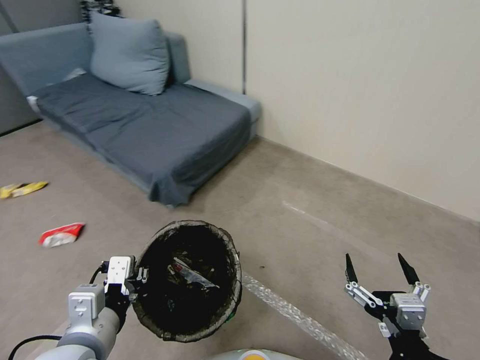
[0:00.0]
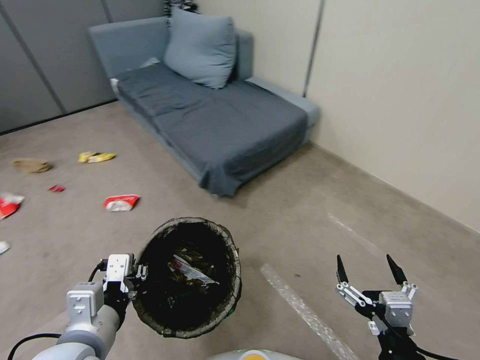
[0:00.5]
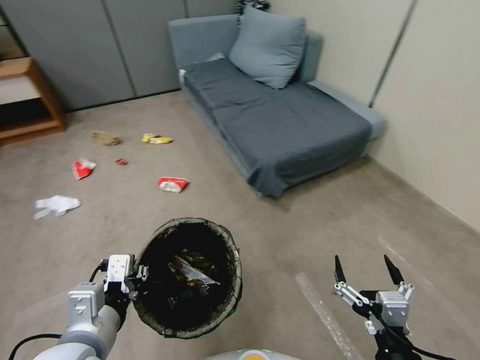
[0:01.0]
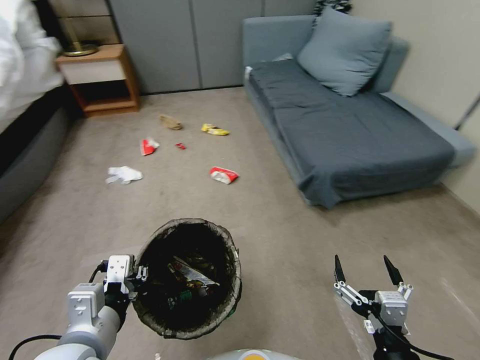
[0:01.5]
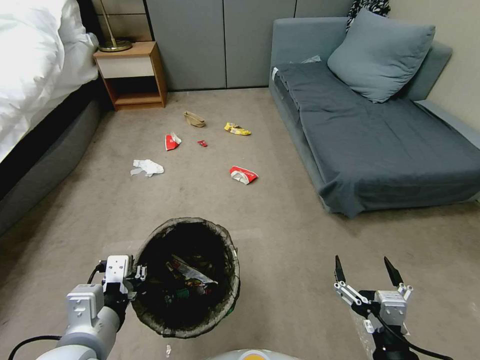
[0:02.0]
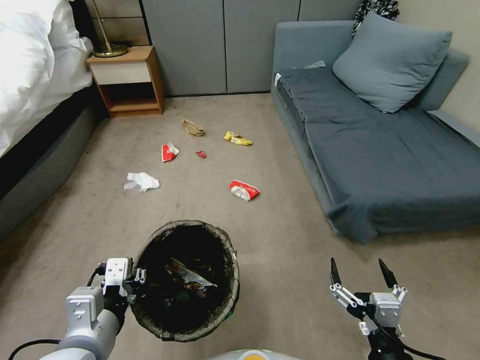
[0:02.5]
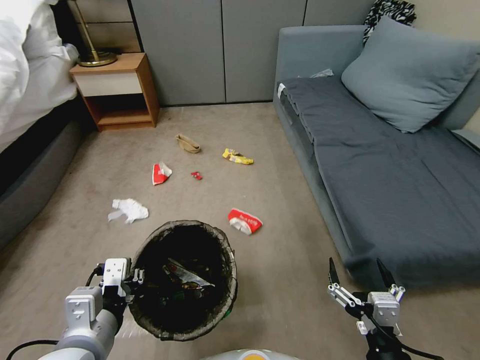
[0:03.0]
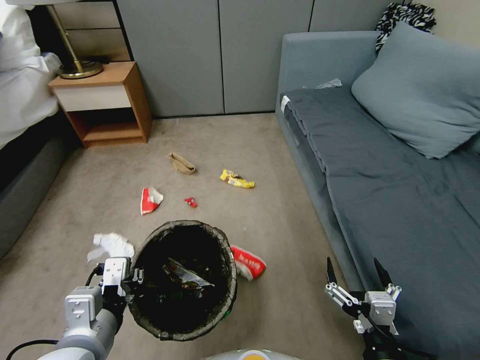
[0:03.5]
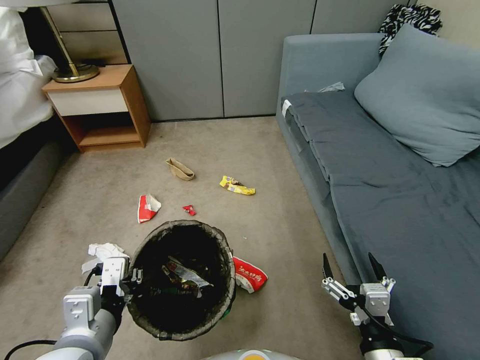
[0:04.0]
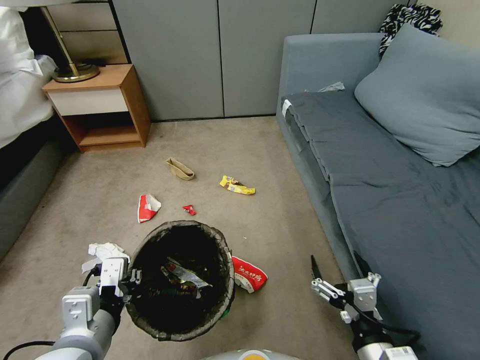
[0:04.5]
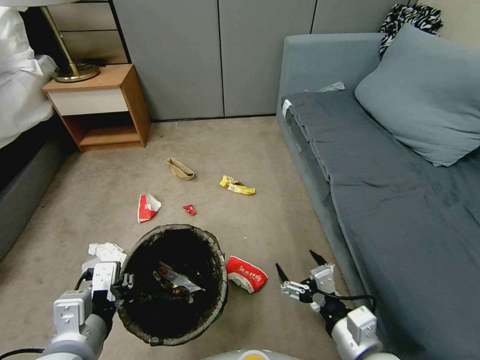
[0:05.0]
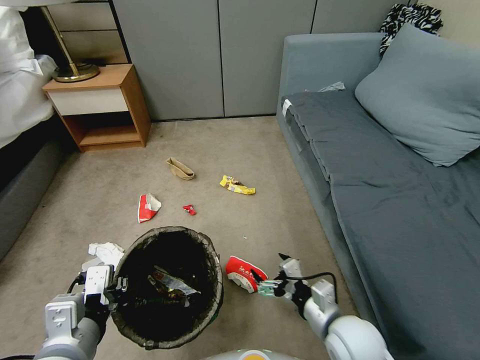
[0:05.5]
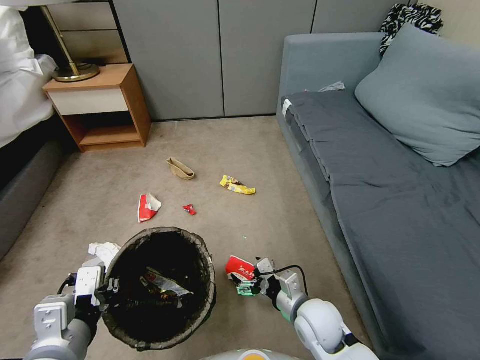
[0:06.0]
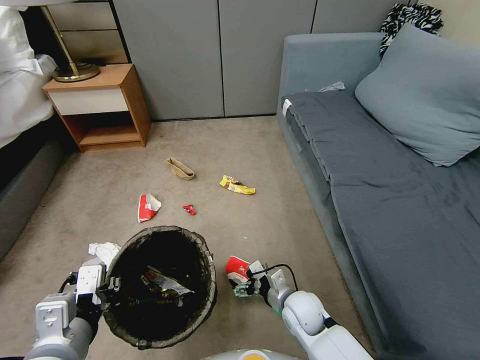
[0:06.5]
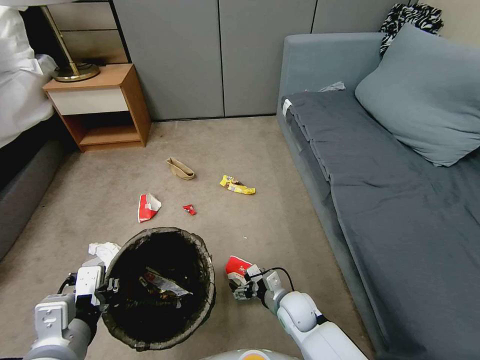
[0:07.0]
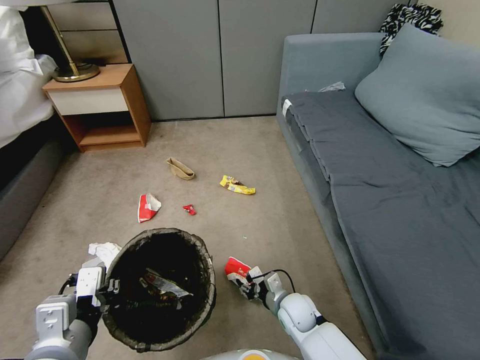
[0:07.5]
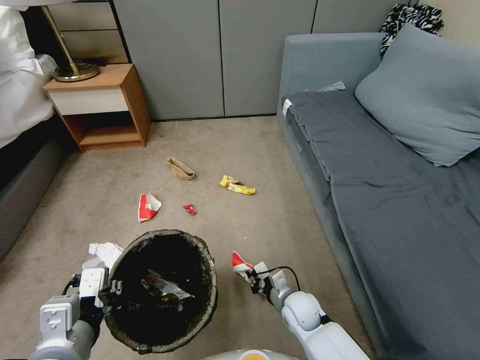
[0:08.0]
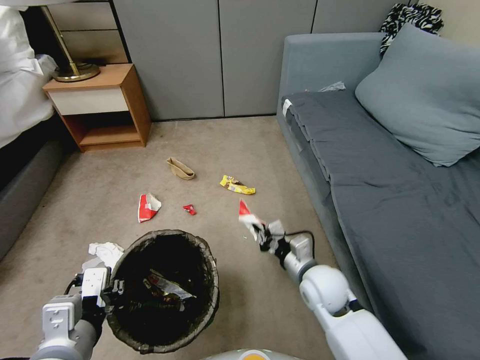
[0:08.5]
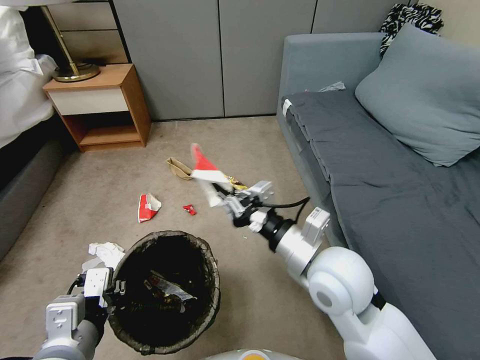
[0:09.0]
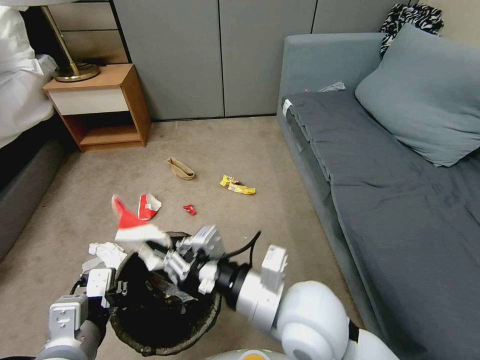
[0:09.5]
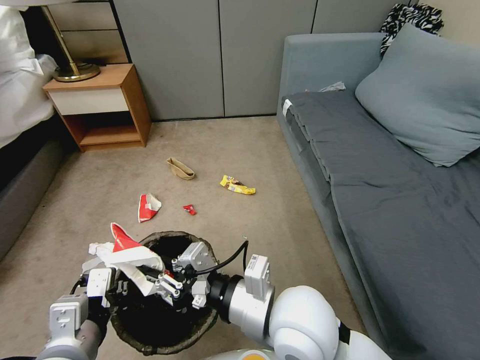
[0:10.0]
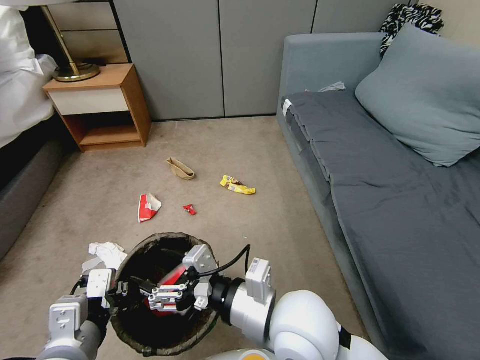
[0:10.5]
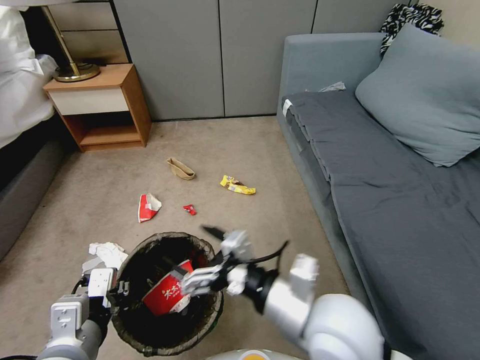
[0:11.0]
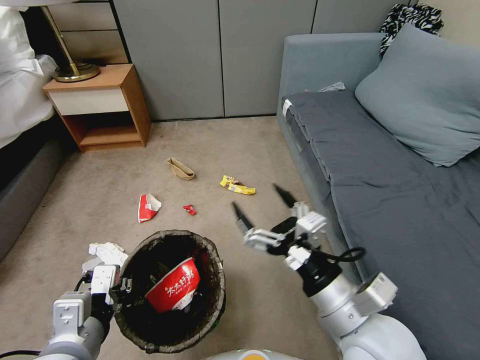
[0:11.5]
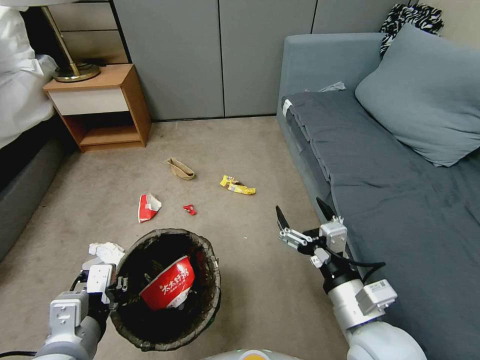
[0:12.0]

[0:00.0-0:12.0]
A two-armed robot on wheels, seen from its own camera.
Task of the whole recording: Pick up the trash bin, then pick up the garbage from the floor and place it into the trash bin.
4.0 to 6.0 s: The right gripper goes approximately 20 cm forward, downward and to the left.
6.0 to 8.0 s: The right gripper is displaced downward by about 10 cm, and closes its fingers.
8.0 to 10.0 s: The right gripper is displaced upward by about 30 cm.
10.0 to 12.0 s: The right gripper heads to the right, covering about 10 cm, and opens its fingers.

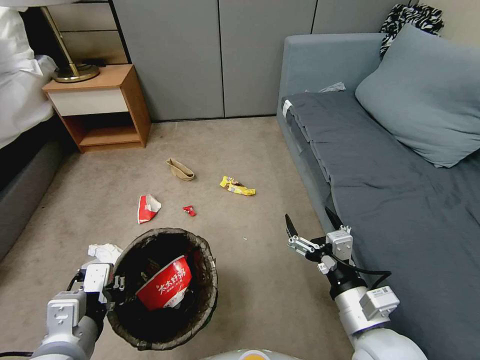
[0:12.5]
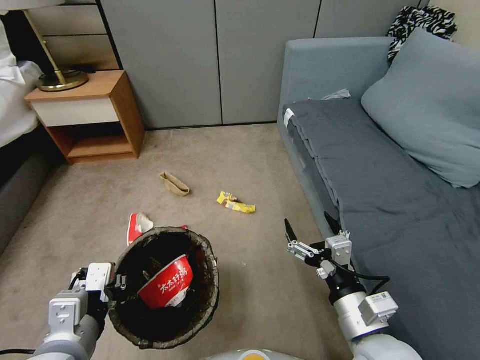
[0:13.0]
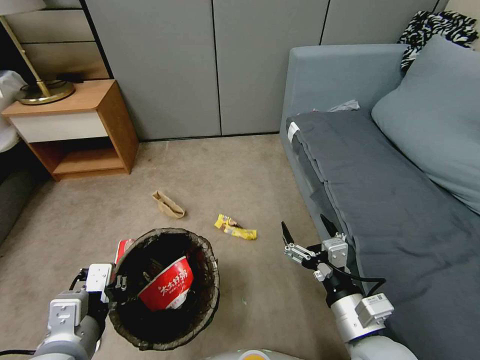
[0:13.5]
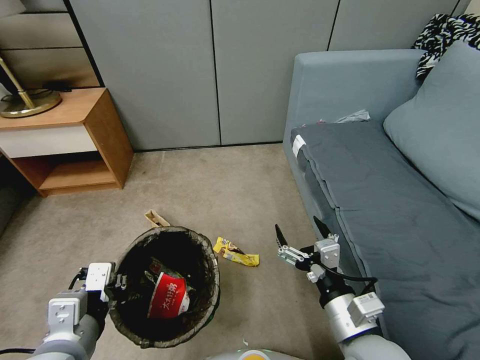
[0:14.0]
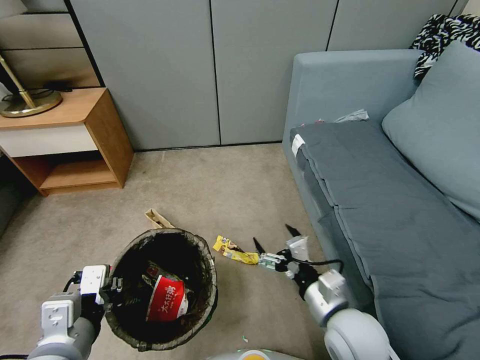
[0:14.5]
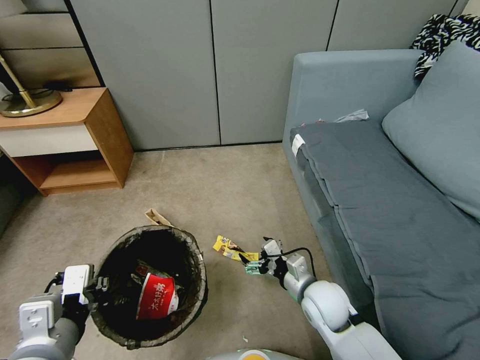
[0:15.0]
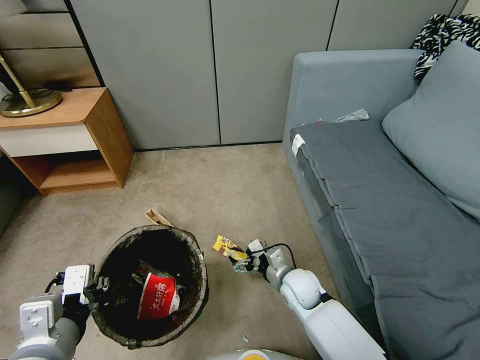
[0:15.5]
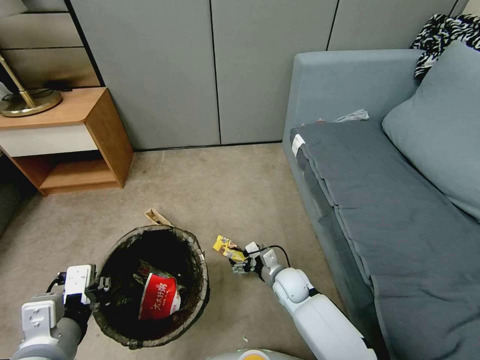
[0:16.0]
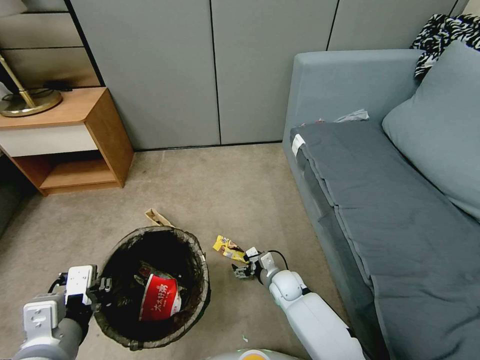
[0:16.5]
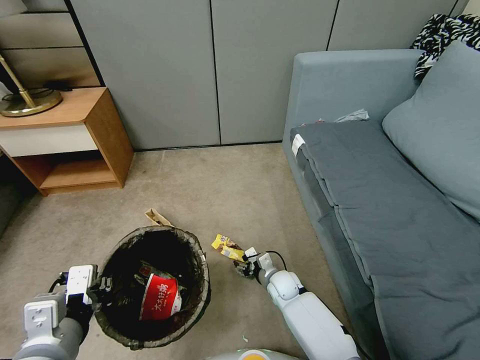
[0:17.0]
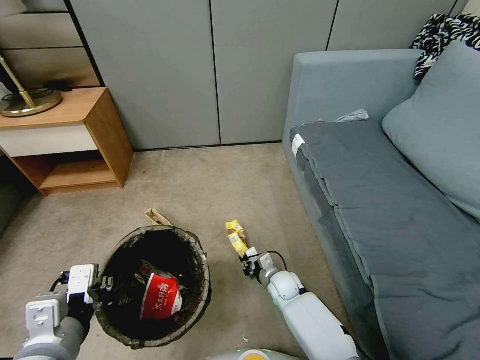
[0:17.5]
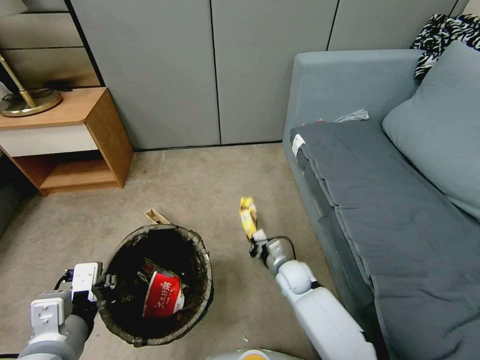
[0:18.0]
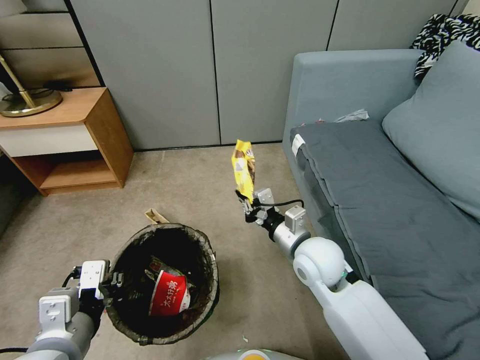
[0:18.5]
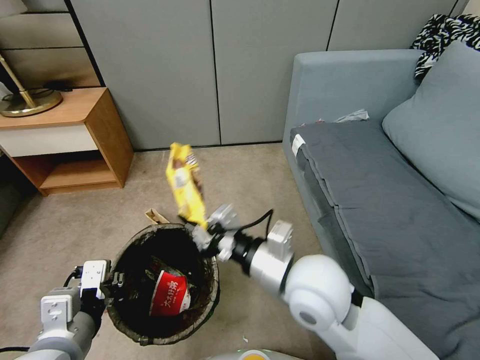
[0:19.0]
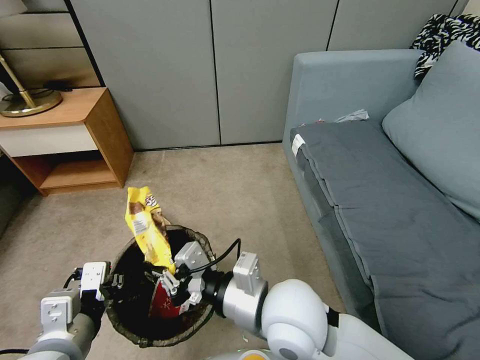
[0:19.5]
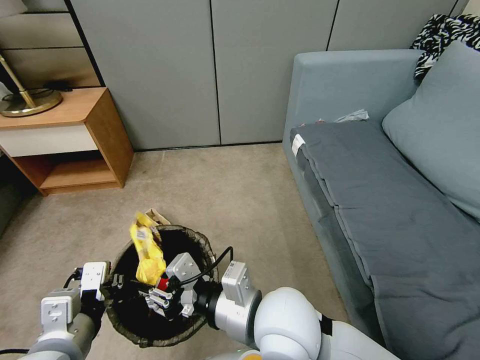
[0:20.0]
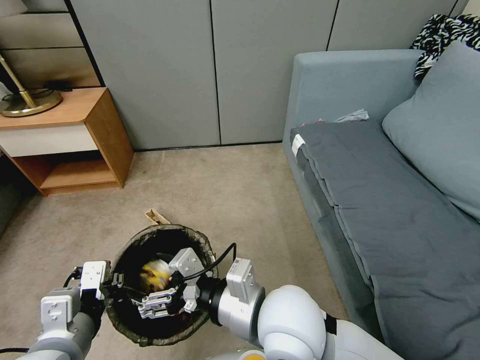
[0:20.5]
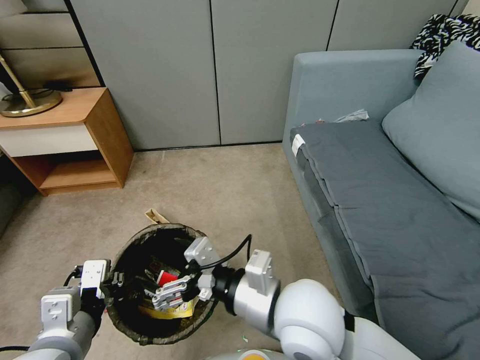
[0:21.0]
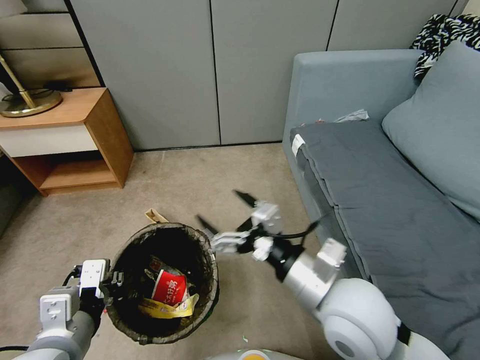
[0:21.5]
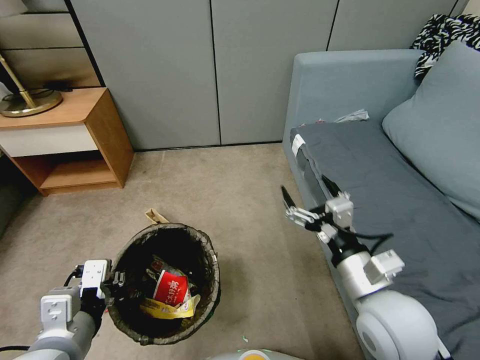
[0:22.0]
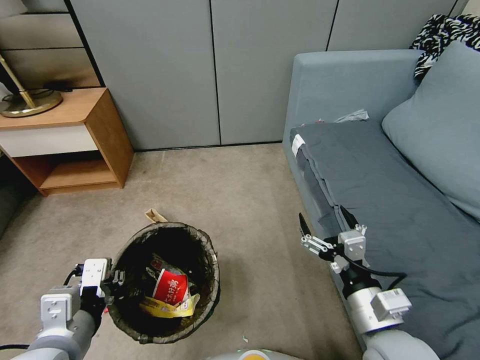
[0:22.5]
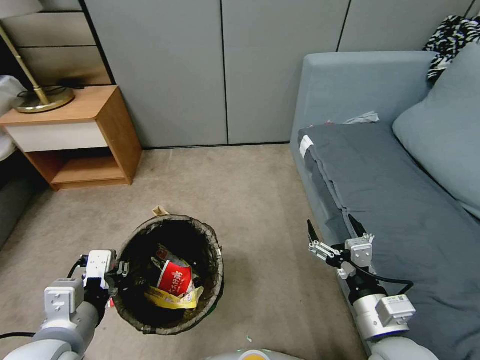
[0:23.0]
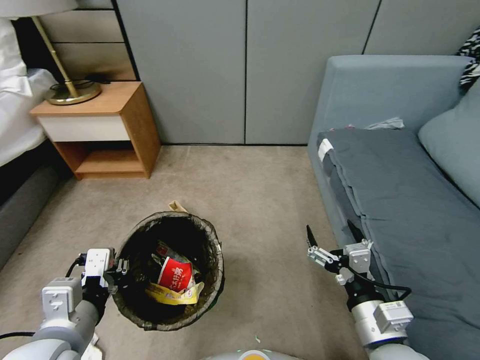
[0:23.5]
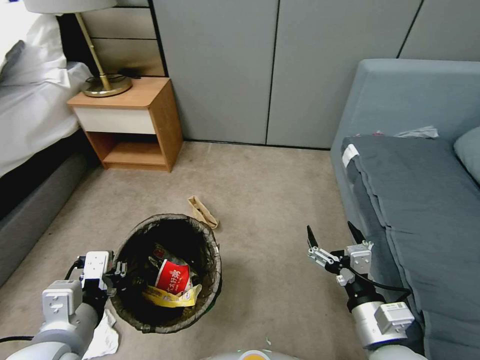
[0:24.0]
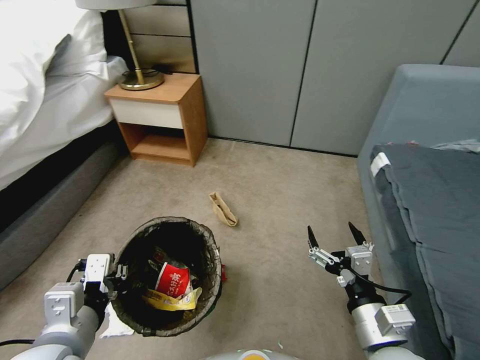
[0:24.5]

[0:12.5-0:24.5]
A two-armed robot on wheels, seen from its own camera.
Task of the whole recording: Pick up the trash bin, then pick up the garbage from the floor and place it into the trash bin.
12.5 to 14.5 s: The right gripper ends up about 5 cm from where it was.
14.5 to 16.5 s: The right gripper is displaced downward and forward by approximately 25 cm.
16.5 to 18.5 s: The right gripper moves upward, some 25 cm, and closes.
18.5 to 20.5 s: The right gripper is displaced backward, to the left and upward by approximately 15 cm, and opens up.
20.5 to 22.5 s: The right gripper moves to the right and downward, roughly 20 cm.

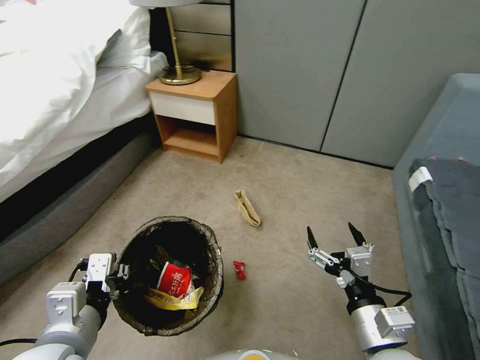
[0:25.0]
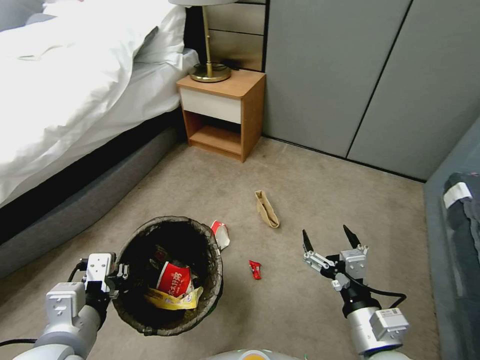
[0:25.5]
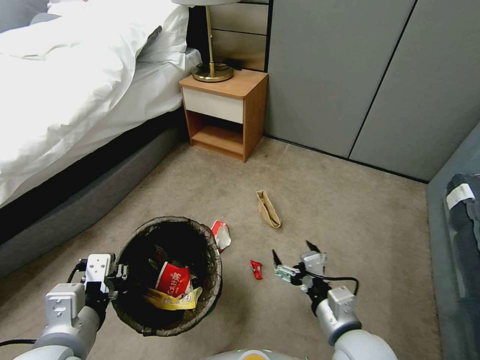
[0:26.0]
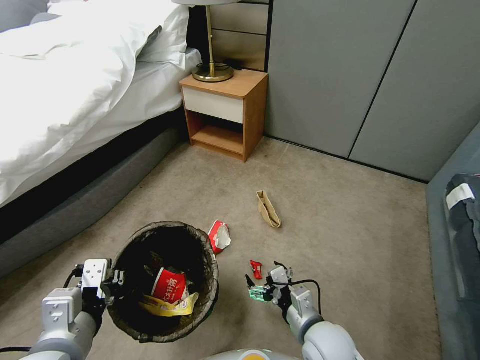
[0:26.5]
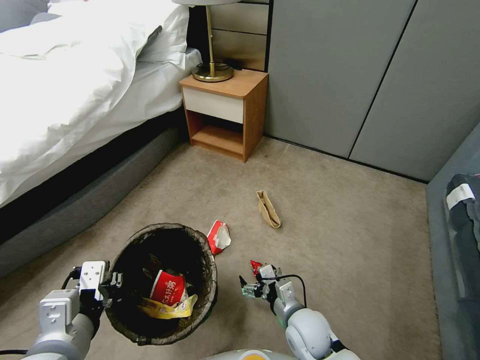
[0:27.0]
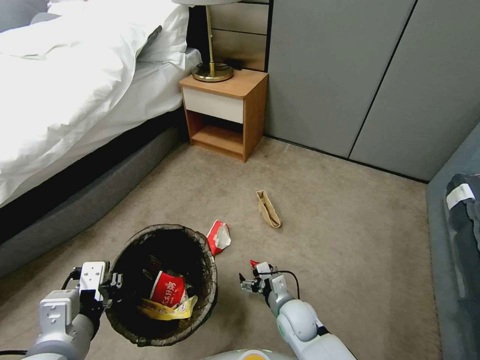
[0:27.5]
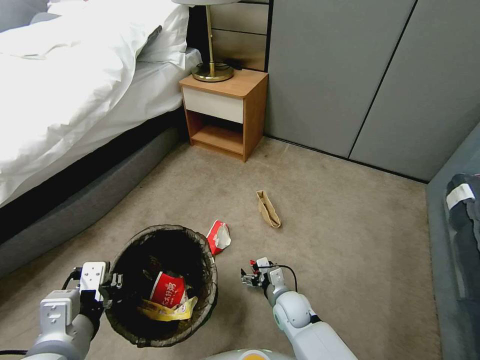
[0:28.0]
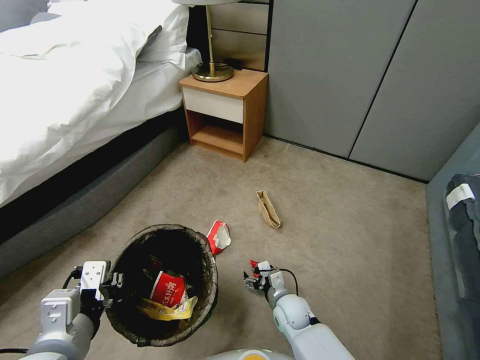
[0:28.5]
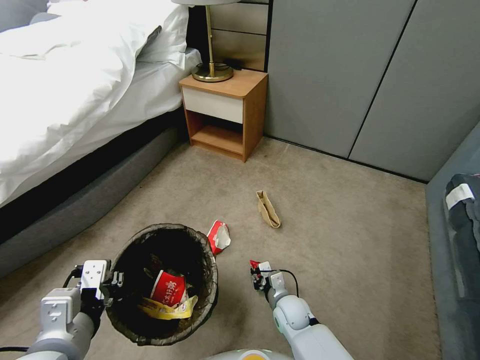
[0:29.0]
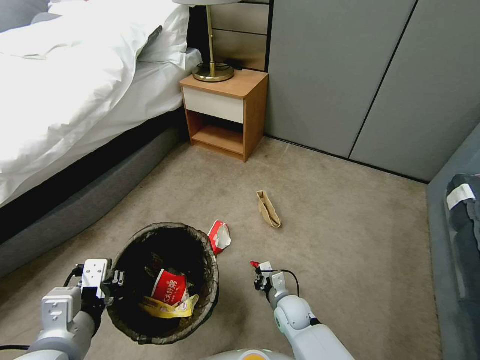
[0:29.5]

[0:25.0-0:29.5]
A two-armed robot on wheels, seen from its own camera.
Task of the whole recording: Pick up the trash bin, then pick up the garbage from the floor and place it into the trash bin.
25.0 to 27.0 s: The right gripper shifts roughly 20 cm downward, forward and to the left.
27.0 to 29.5 s: The right gripper is displaced downward and forward by approximately 10 cm, and closes up.
